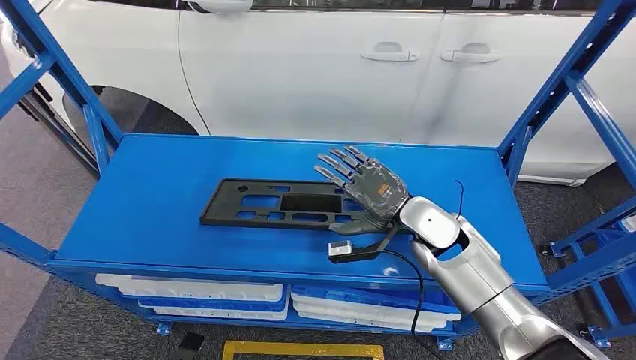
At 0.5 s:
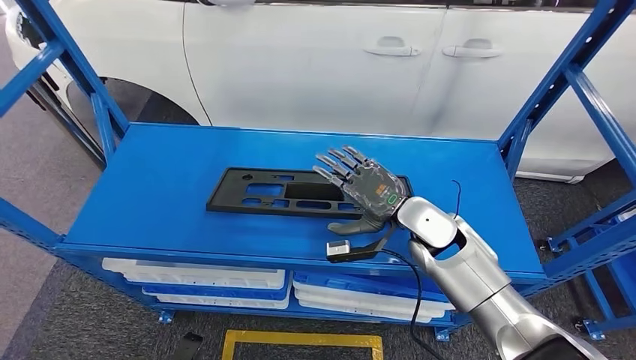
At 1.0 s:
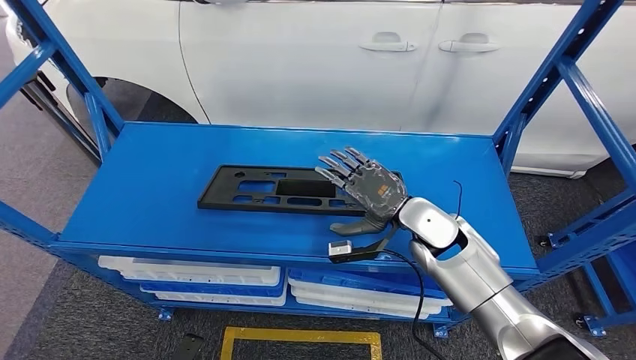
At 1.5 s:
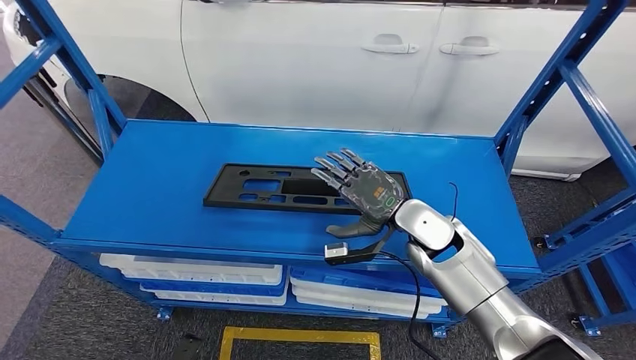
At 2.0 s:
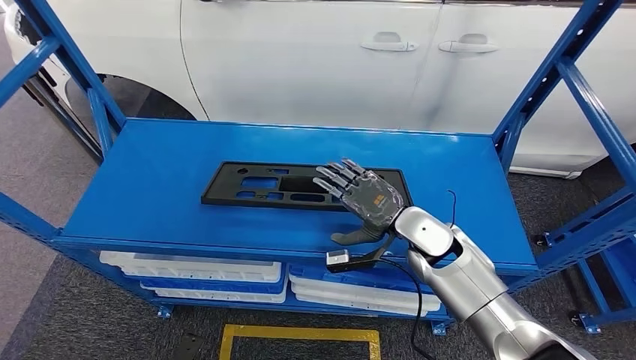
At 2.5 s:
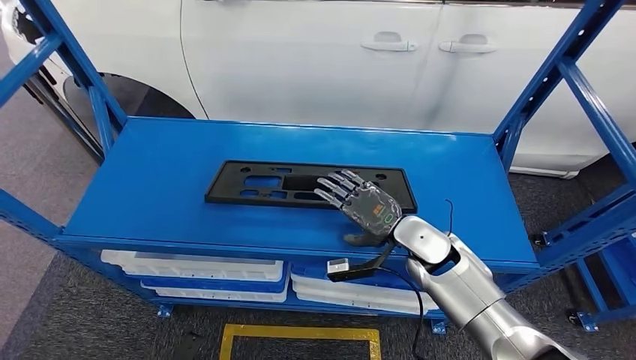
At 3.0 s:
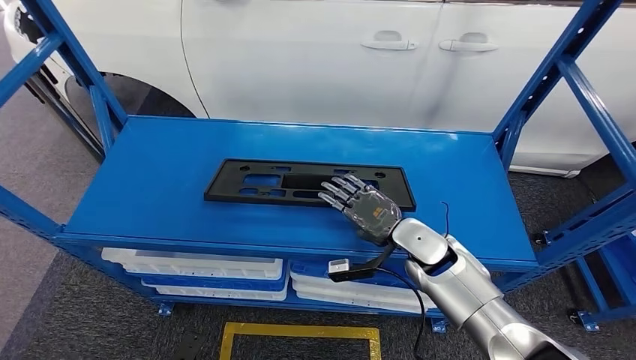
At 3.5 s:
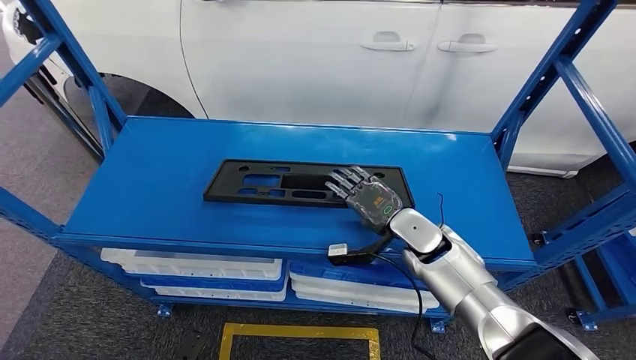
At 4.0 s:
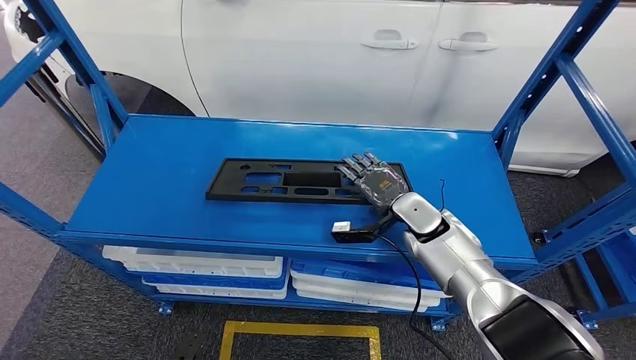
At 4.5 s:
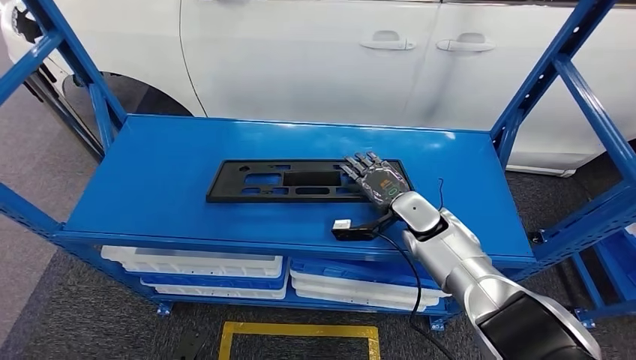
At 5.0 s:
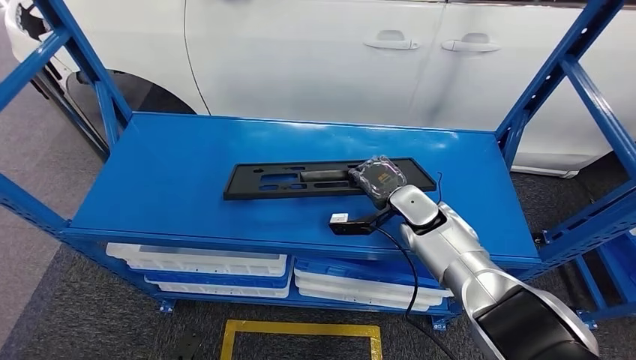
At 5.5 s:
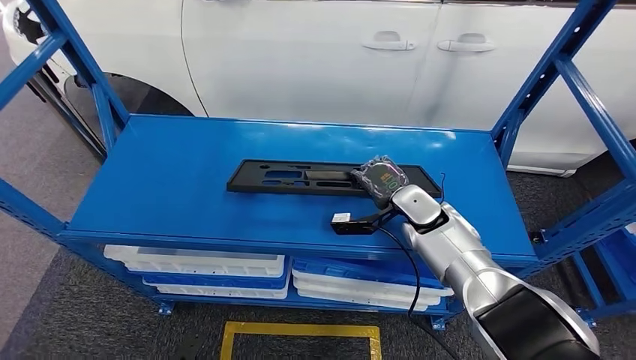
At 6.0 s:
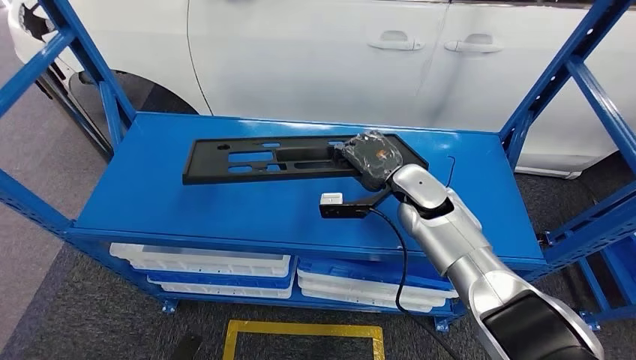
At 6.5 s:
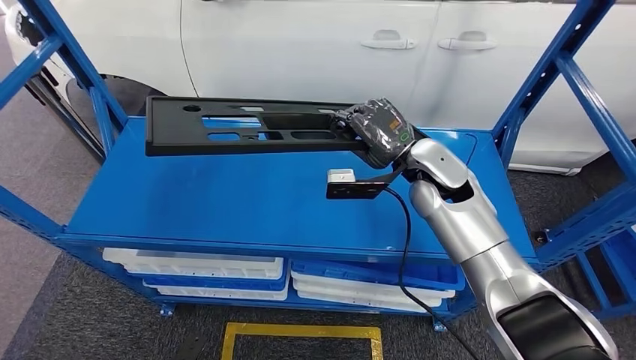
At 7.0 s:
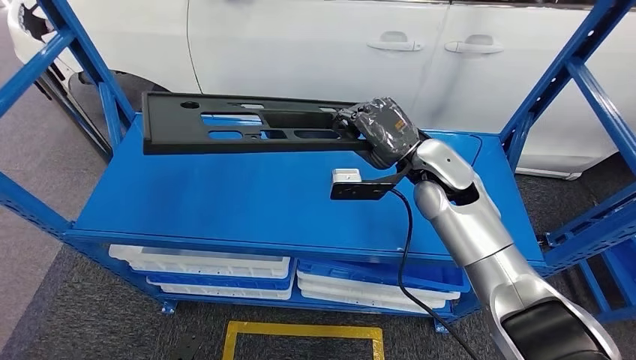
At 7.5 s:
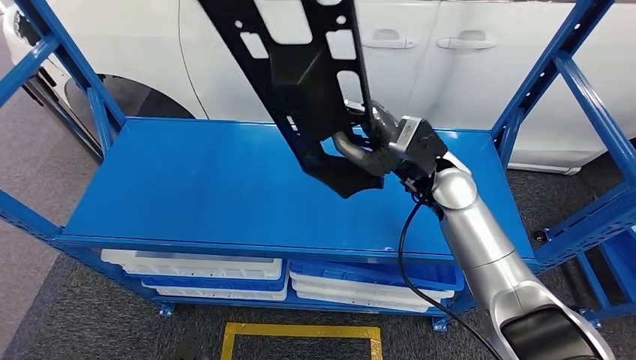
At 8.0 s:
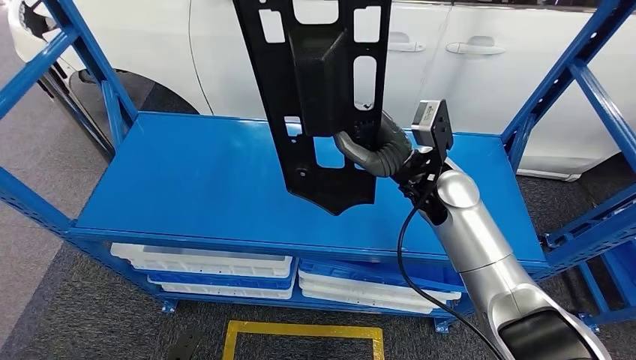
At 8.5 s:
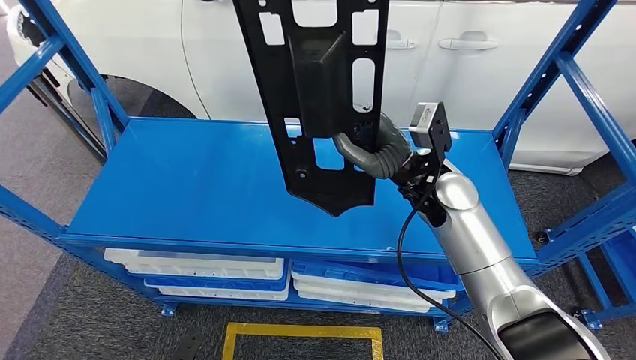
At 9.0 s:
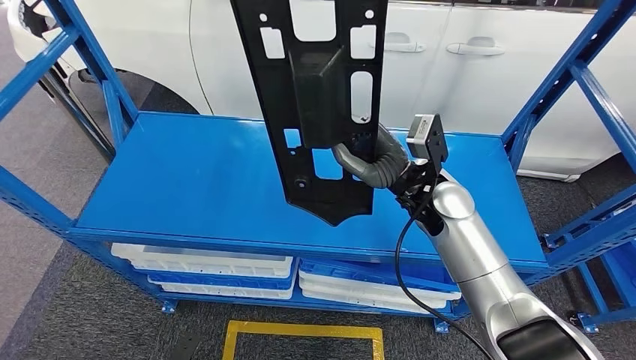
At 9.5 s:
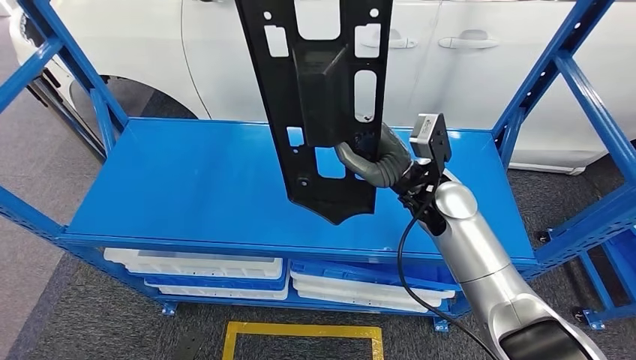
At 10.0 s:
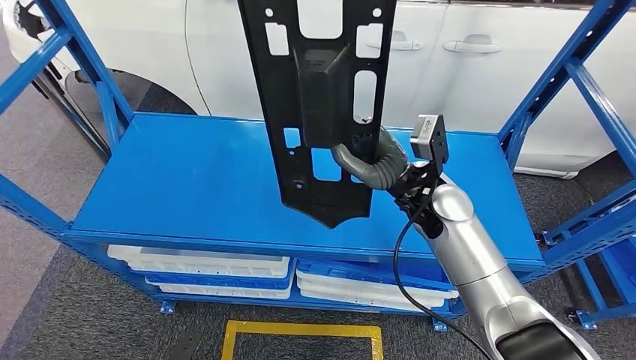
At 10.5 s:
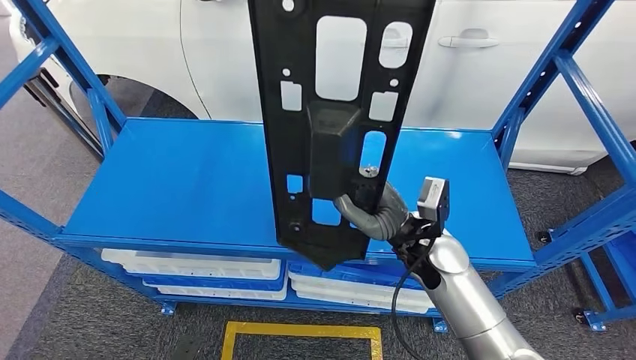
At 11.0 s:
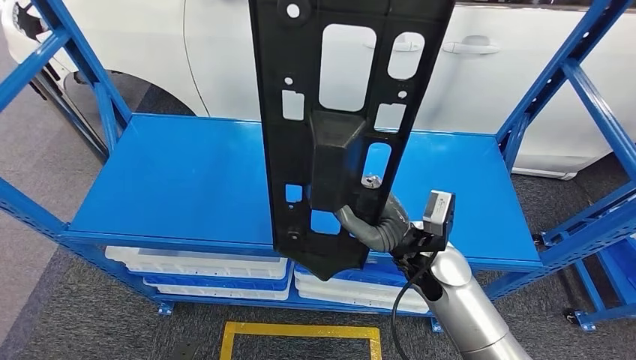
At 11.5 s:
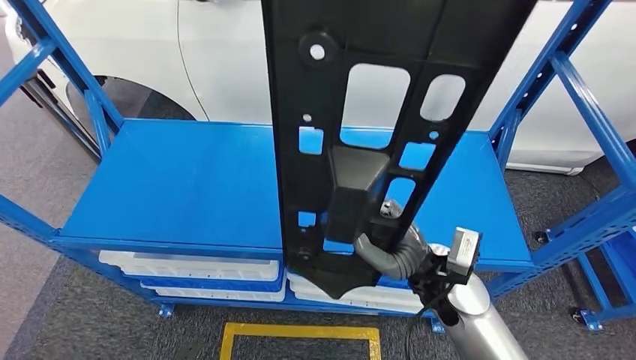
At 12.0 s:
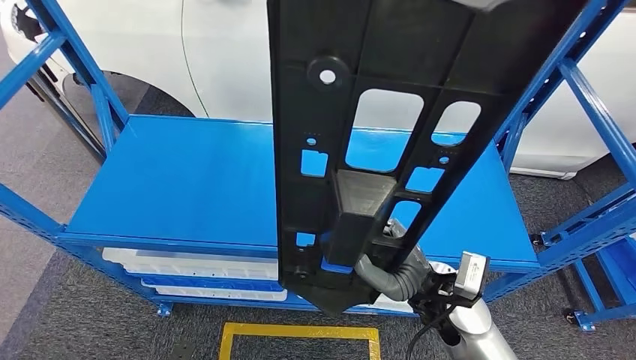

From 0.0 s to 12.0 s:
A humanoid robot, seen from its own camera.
Step, from 0.0 s to 6.5 s: Pick up the large material from the shelf.
From 2.0 s to 4.0 s: The right hand moves some 5 cm.

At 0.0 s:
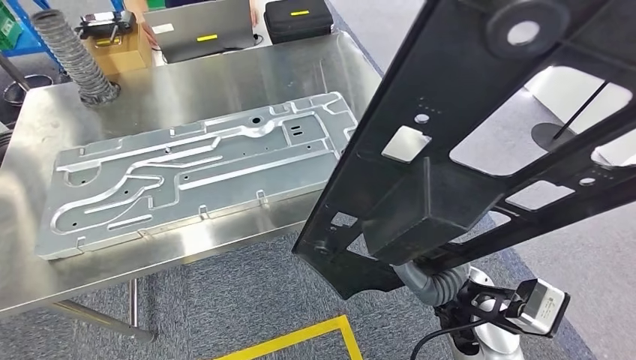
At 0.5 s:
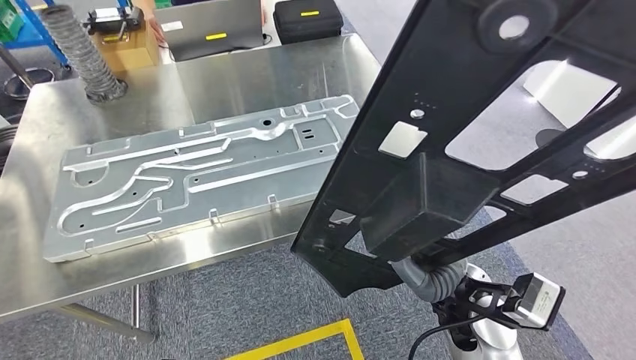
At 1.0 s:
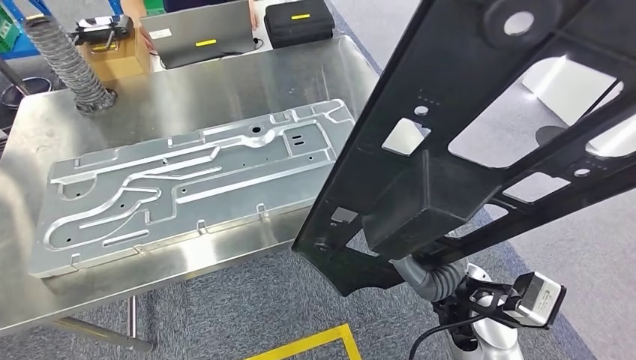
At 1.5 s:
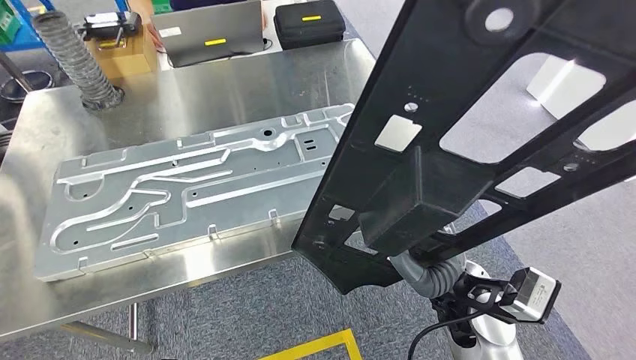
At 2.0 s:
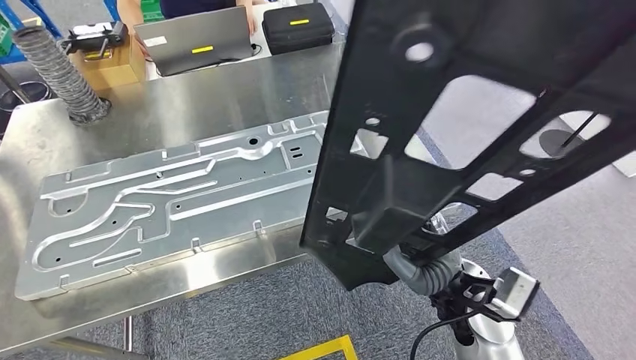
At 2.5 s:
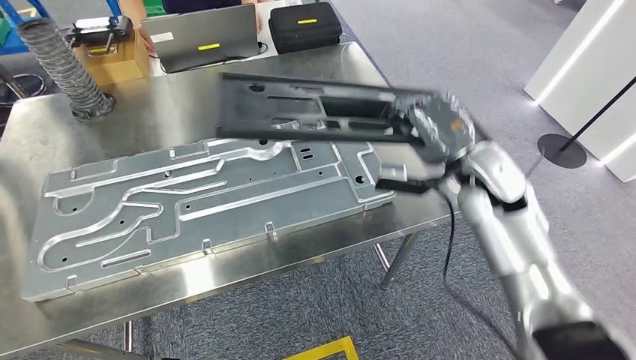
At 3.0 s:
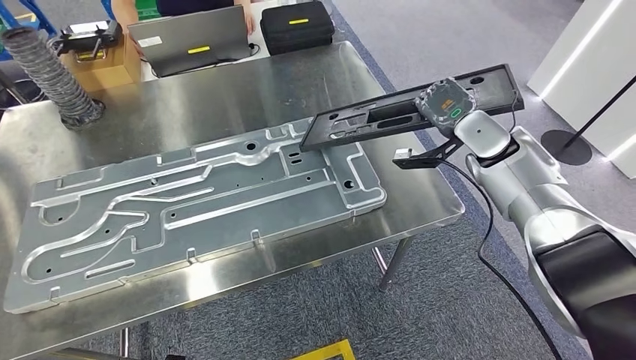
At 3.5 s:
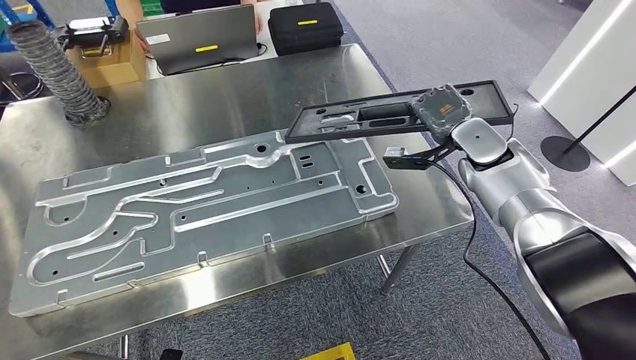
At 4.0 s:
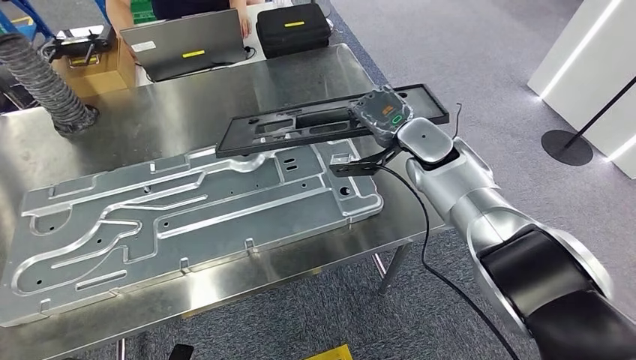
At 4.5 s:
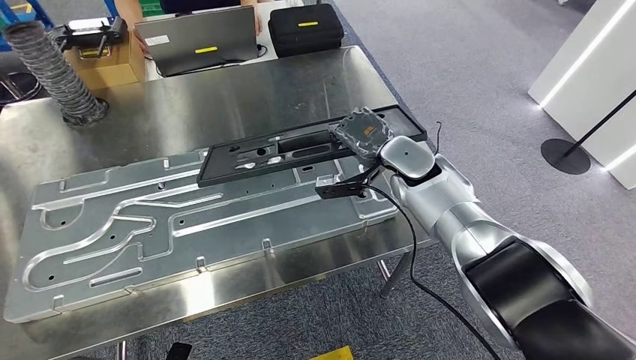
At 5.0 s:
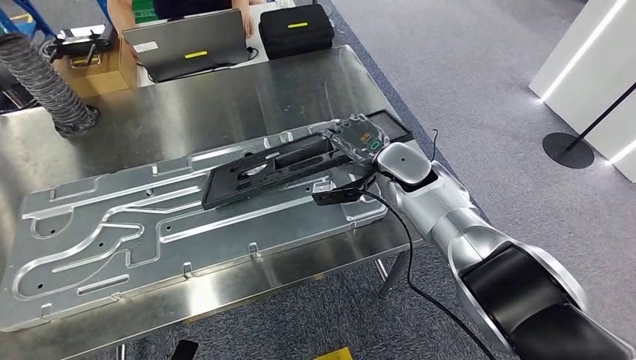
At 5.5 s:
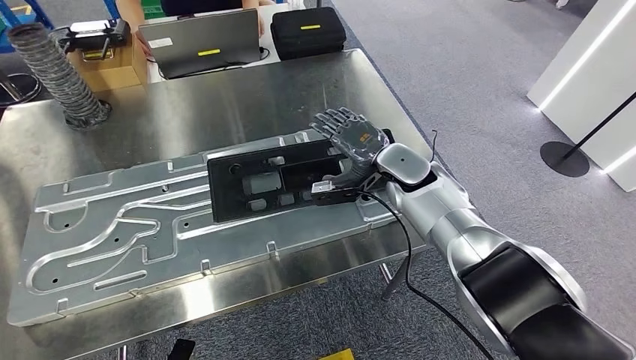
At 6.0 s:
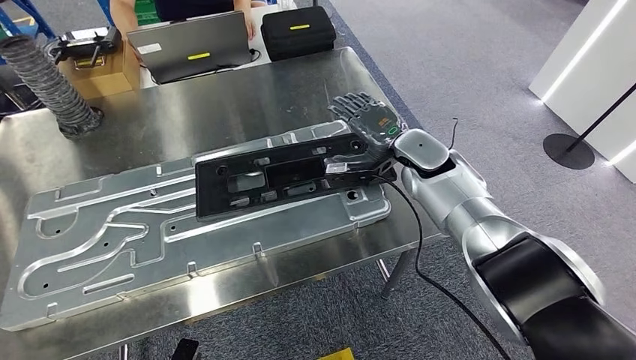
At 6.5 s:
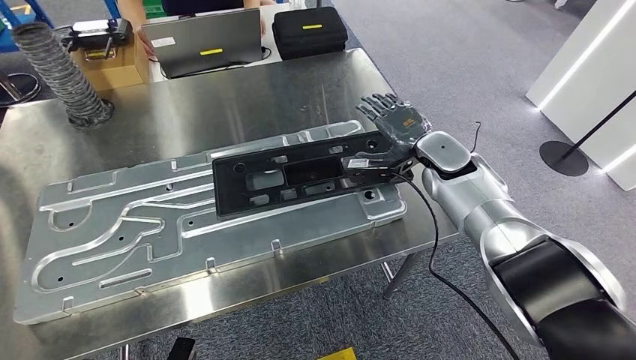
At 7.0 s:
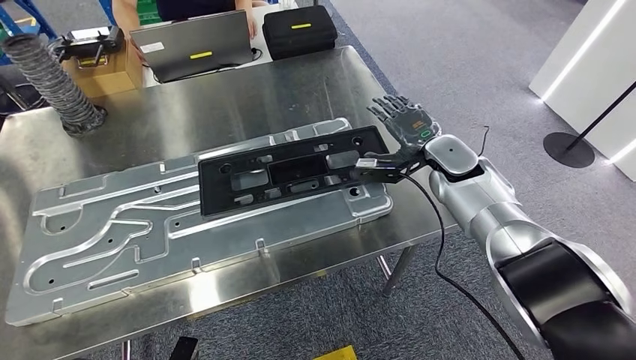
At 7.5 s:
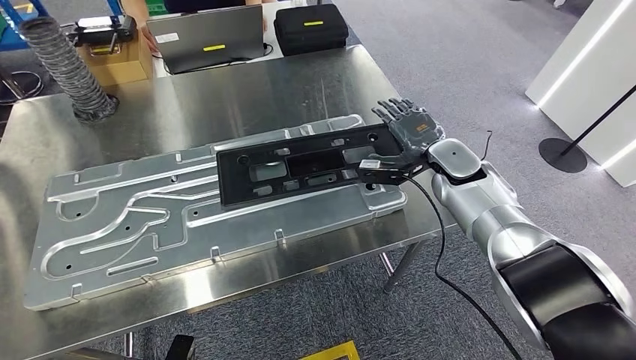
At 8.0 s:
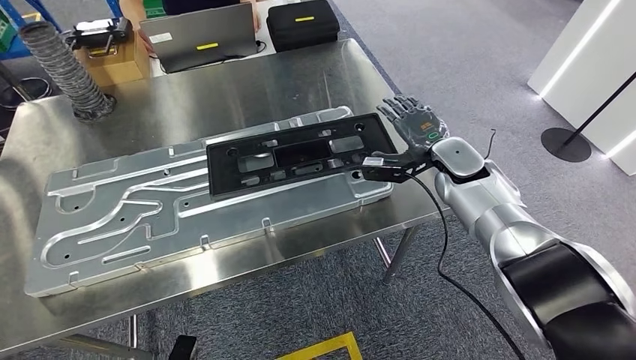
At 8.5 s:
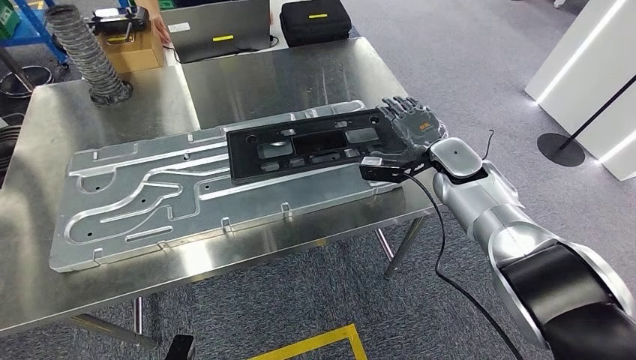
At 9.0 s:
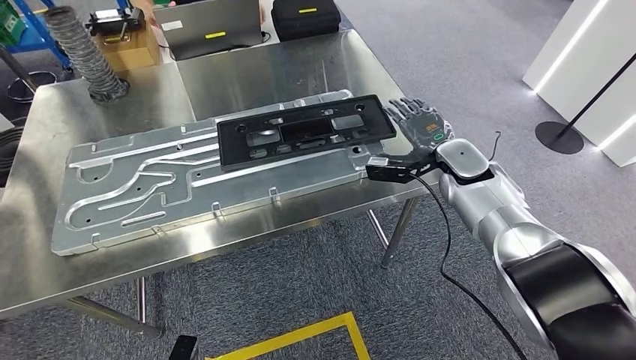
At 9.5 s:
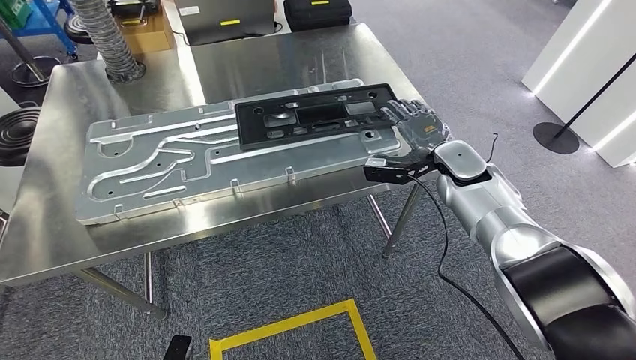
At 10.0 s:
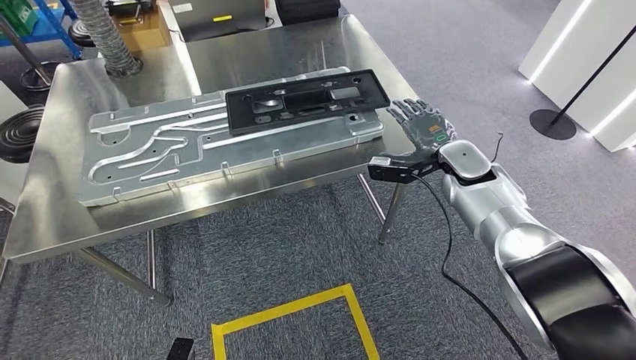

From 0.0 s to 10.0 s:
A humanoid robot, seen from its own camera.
Step, from 0.0 s to 3.0 s: Move the large material to the workbench.
Step, from 3.5 s to 6.5 s: Insert the large material into the corresponding slot on the workbench.
